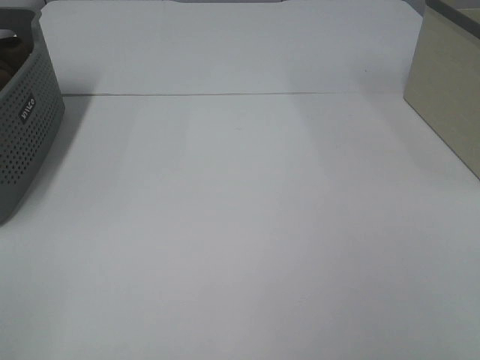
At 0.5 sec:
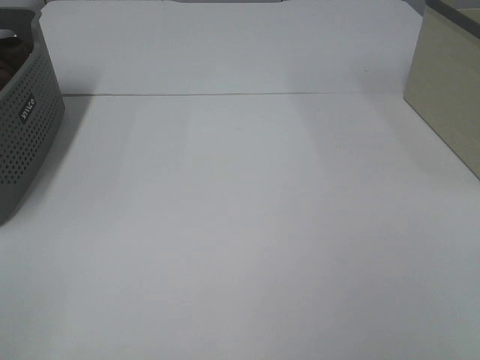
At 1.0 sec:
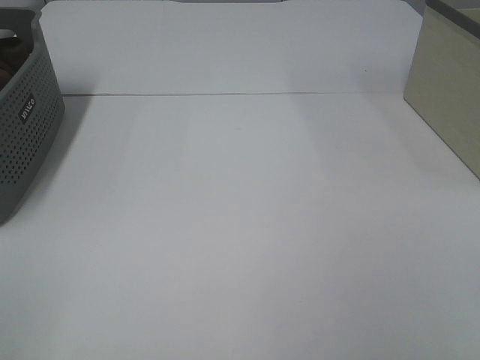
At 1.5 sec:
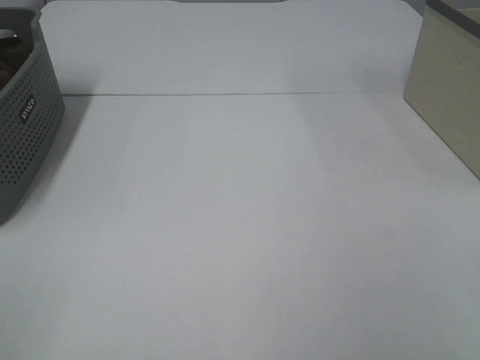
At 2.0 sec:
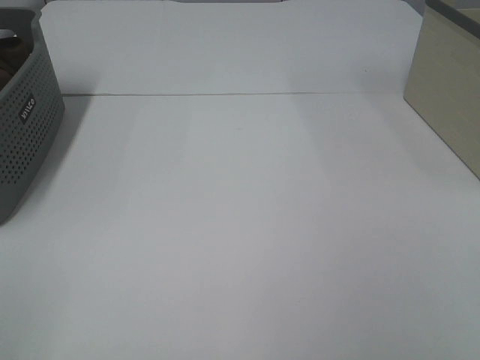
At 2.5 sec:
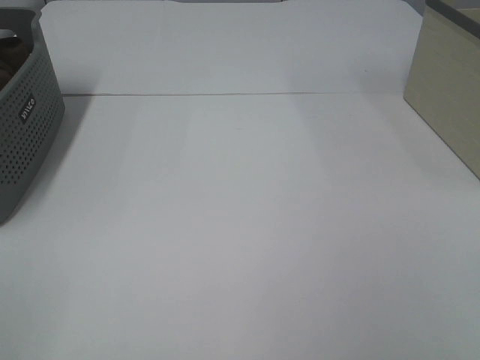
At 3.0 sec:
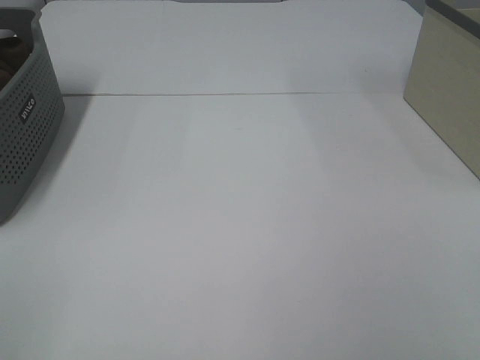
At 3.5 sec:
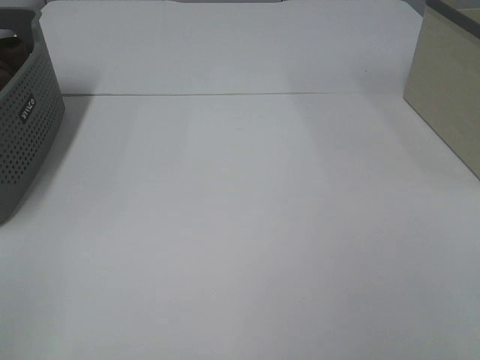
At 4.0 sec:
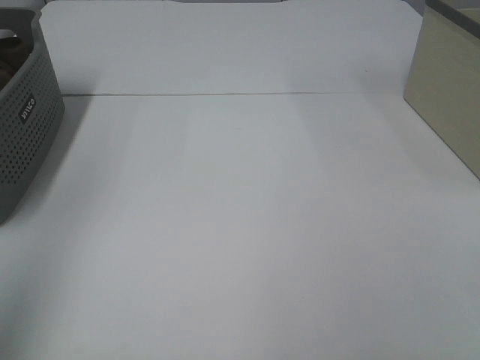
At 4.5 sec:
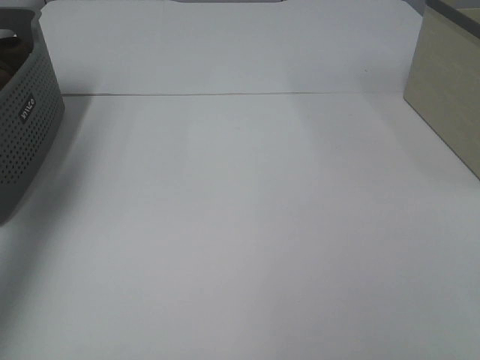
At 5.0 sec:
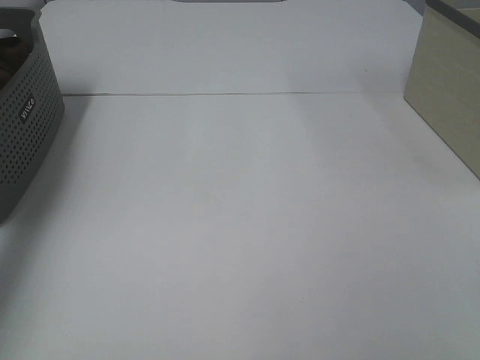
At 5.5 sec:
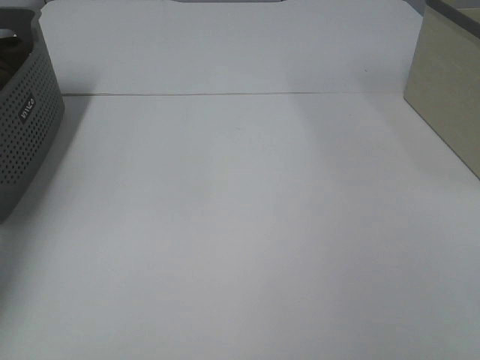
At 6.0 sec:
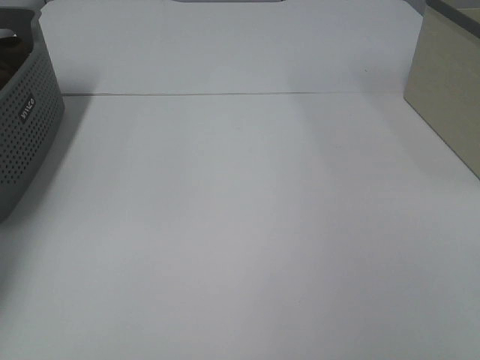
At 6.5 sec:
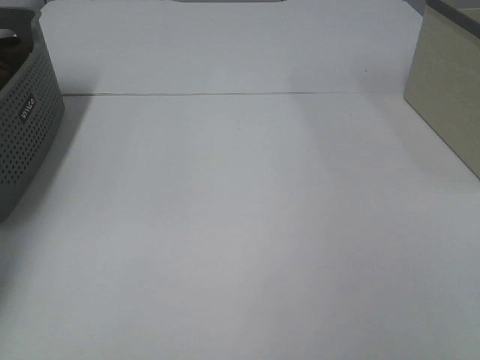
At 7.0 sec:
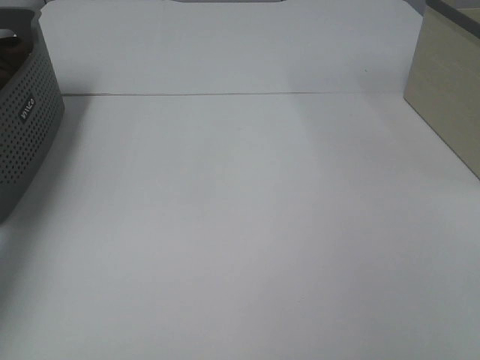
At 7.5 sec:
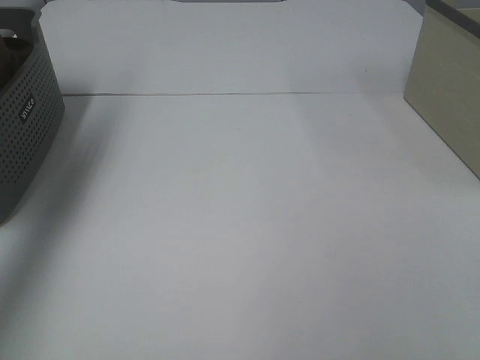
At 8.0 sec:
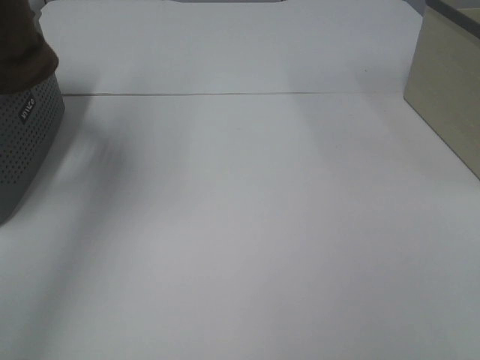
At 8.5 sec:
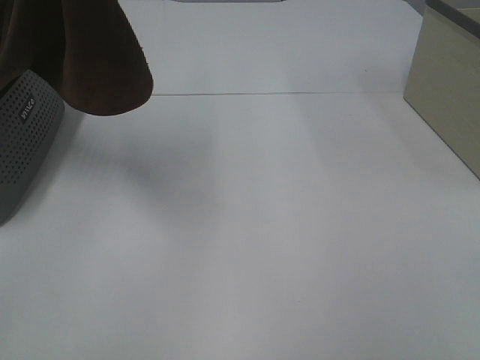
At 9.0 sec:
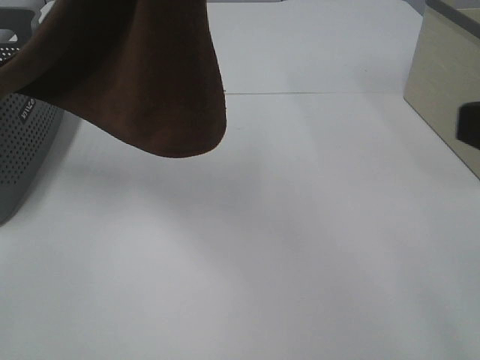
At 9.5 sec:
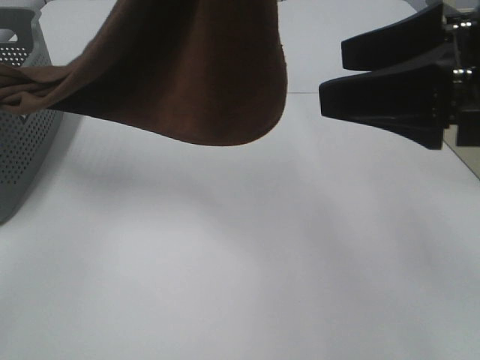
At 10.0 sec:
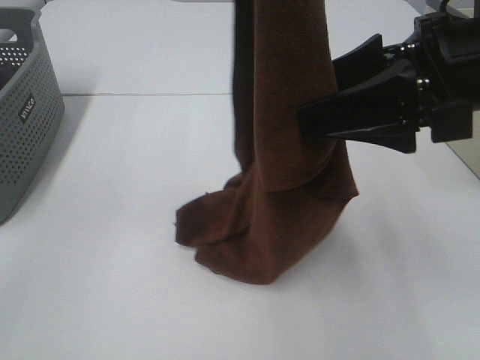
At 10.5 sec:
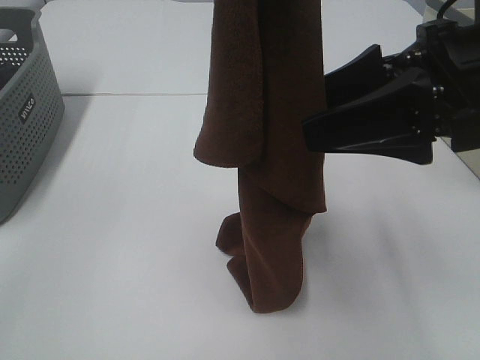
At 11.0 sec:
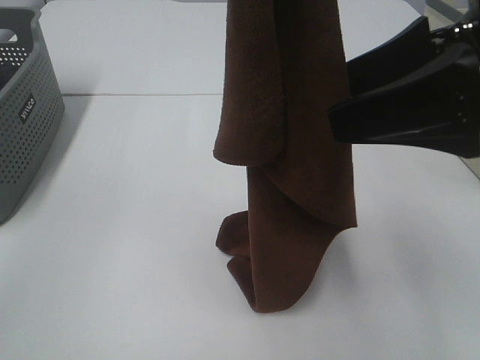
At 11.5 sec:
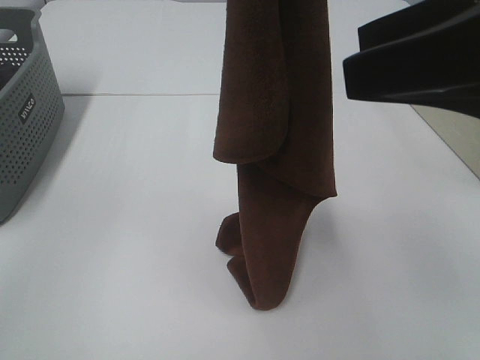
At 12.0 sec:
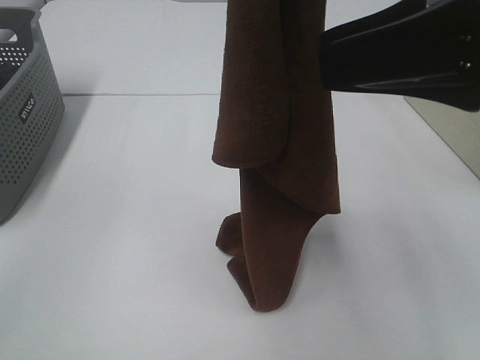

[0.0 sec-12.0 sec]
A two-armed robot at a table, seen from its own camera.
Task of the whole recording: Remove the towel and place it.
0.0 sec to 2.0 sec: Both grippers stay about where they are.
2.0 sec to 4.0 sec: The left gripper shifts roughly 20 cm upward and forward.
4.0 sec to 6.0 sec: The left gripper moves forward and downward, roughly 40 cm.
6.0 sec to 8.0 sec: The left gripper travels upward, to the right and backward by about 35 cm, and closes up.
8.0 sec to 10.0 sec: The right gripper heads forward and to the left, covering roughly 25 cm. The left gripper shifts approximately 20 cm to the right and backward.
10.0 sec to 12.0 sec: The right gripper moves some 5 cm.

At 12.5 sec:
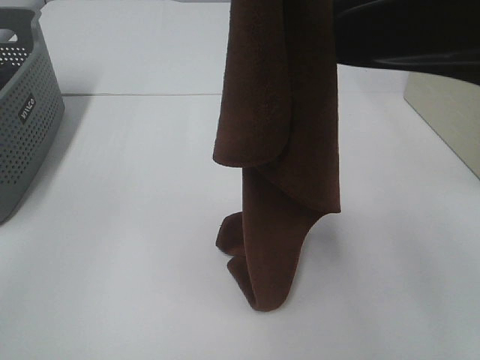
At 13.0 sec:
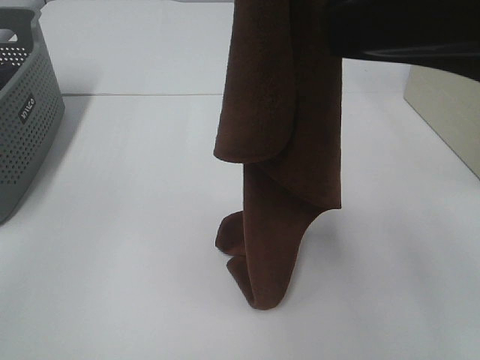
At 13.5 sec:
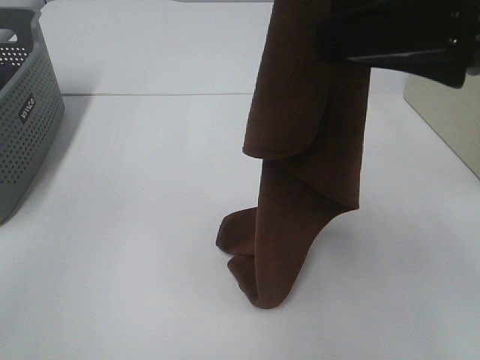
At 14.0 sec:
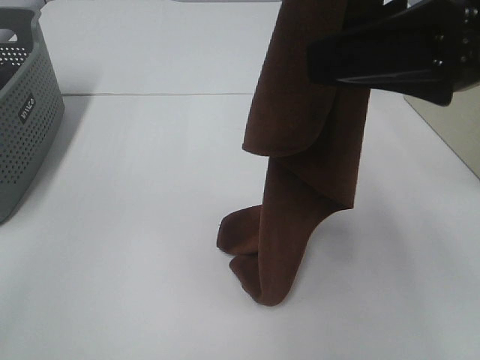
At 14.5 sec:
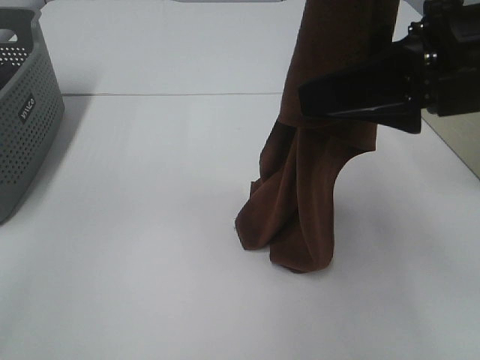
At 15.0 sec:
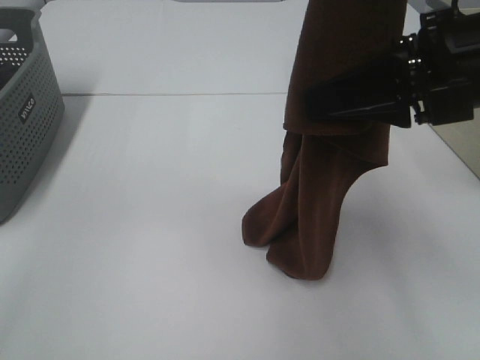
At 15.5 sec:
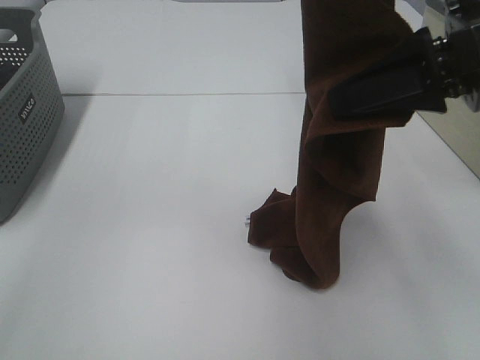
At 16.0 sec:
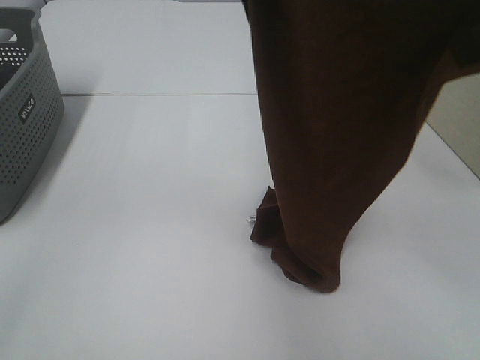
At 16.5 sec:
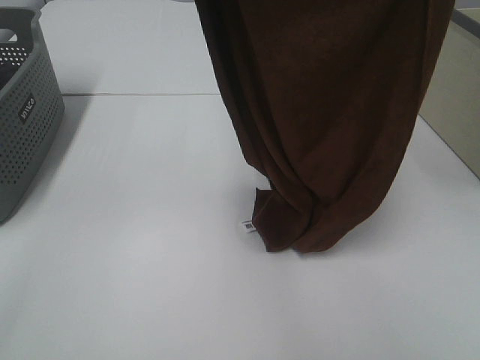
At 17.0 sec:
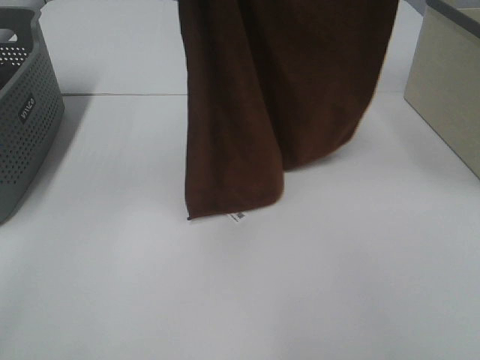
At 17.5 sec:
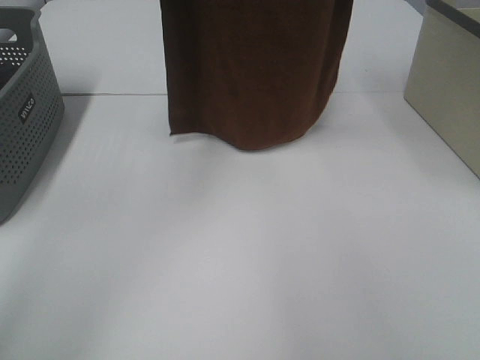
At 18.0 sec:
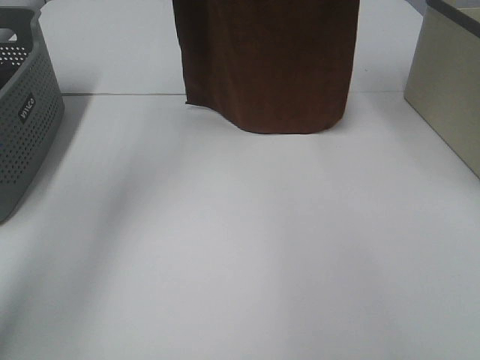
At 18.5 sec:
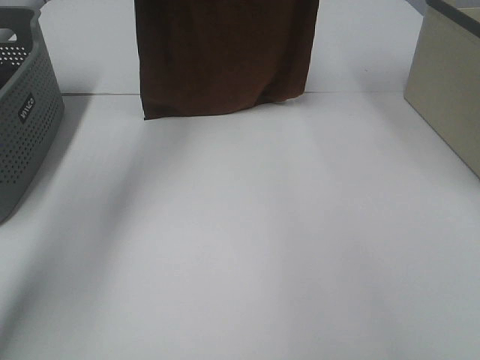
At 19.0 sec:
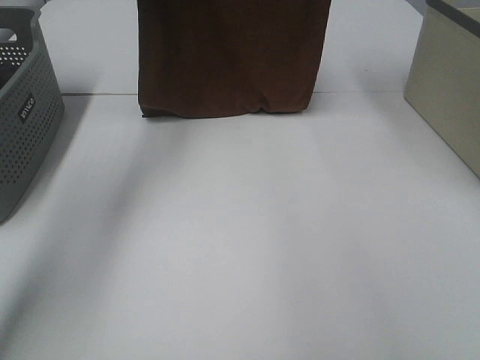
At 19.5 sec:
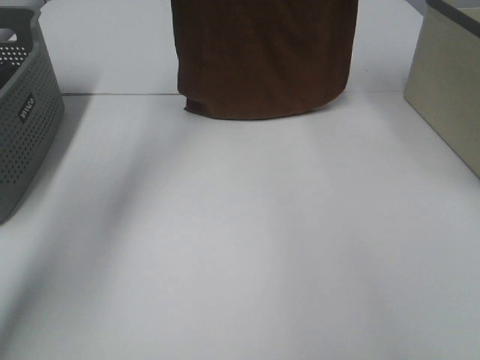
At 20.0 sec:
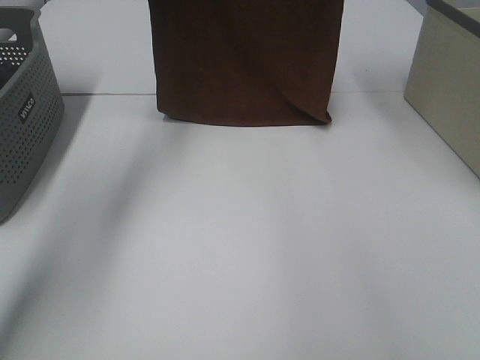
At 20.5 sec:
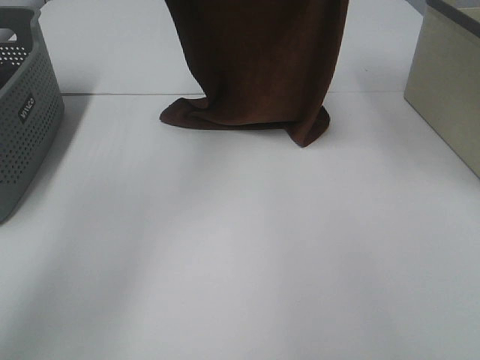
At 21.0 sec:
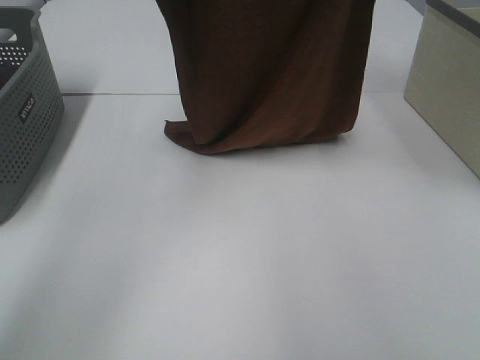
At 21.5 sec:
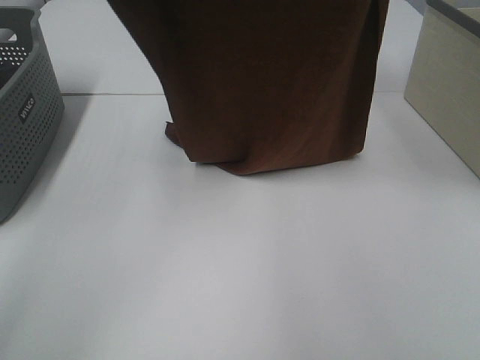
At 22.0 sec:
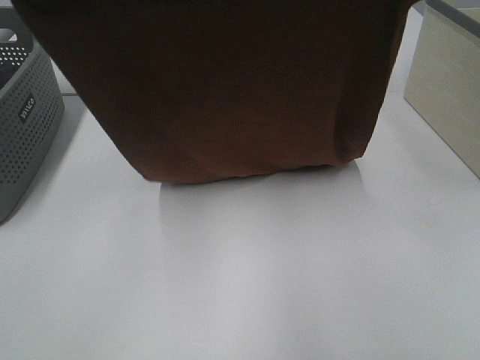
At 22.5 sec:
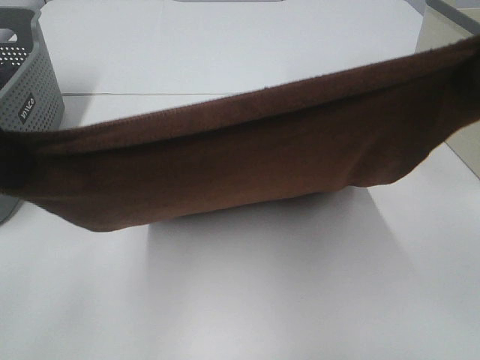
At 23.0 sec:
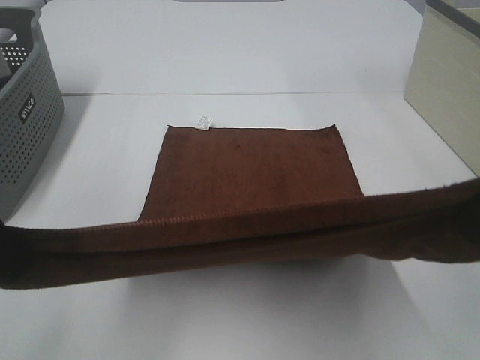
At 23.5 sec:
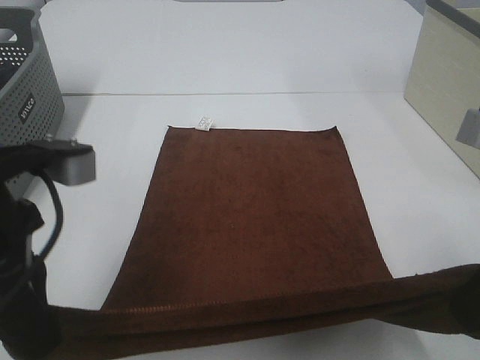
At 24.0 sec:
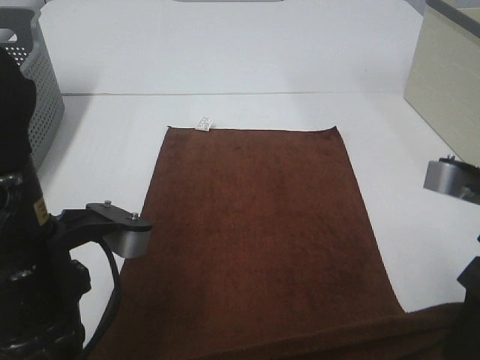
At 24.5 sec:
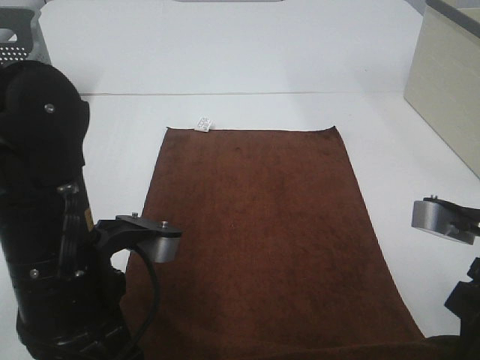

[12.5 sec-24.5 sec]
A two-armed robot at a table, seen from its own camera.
Task of the whole recording: Remove the towel and place it.
Step, 14.0 sec to 21.0 sec: Left hand: spread the brown towel flat on the table.
Step, 14.0 sec to 21.0 sec: Right hand: spread the brown towel flat on the table.
12.5 sec to 14.5 sec: The left gripper shifts by roughly 5 cm. The right gripper shifts roughly 10 cm downward and forward.
14.5 sec to 16.5 sec: The right gripper moves upward, some 20 cm, and closes its fingers. Meanwhile the left gripper goes about 5 cm to the left.
16.5 sec to 18.5 sec: The left gripper heads forward and to the left, covering approximately 25 cm; the right gripper shifts approximately 20 cm forward.
18.5 sec to 20.5 sec: The right gripper changes place by roughly 5 cm. The left gripper heads backward, covering roughly 5 cm.
20.5 sec to 22.5 sec: Both grippers travel together backward, about 25 cm.
22.5 sec to 24.5 sec: The left gripper goes about 20 cm downward and to the right; the right gripper is displaced downward by roughly 20 cm.

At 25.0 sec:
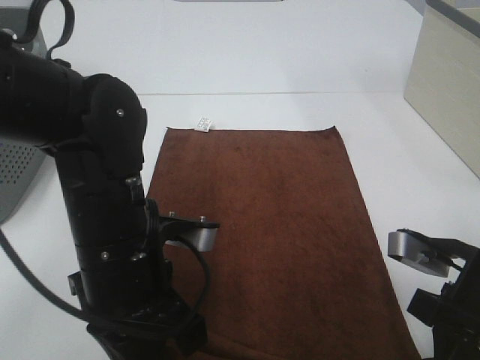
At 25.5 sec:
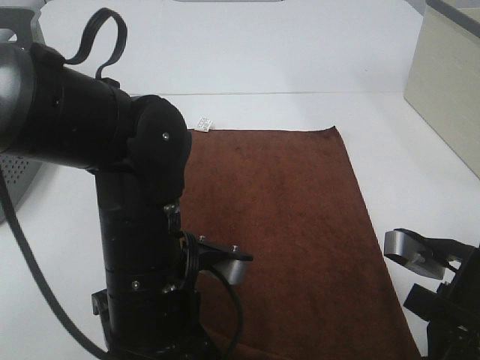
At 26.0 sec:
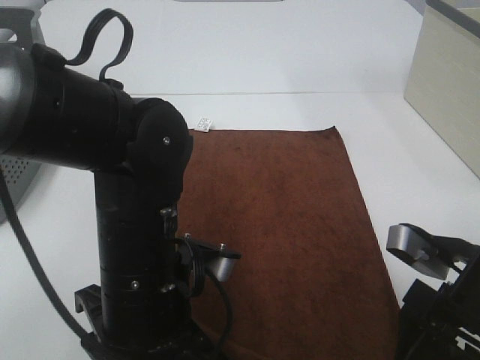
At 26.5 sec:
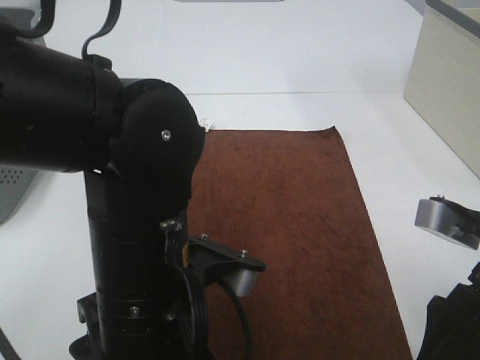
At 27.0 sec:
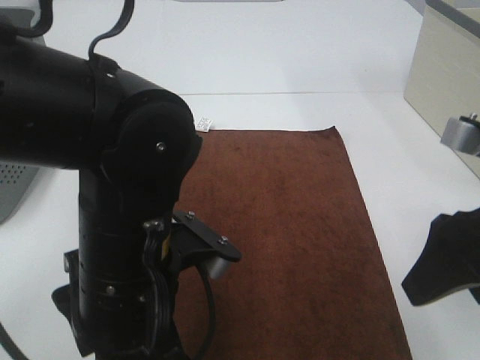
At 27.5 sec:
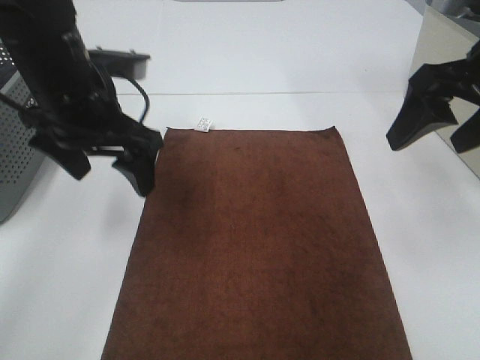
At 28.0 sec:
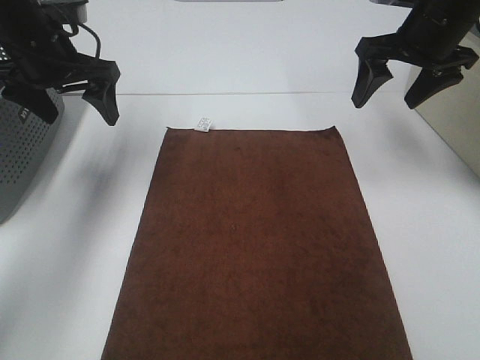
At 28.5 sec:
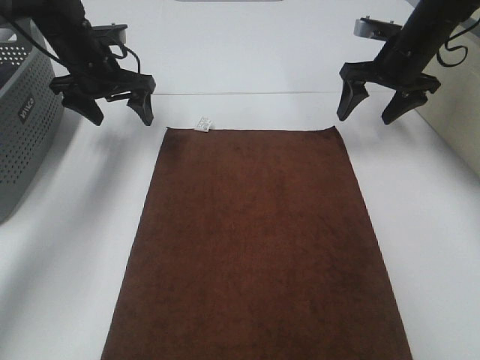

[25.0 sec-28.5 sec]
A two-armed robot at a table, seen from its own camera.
Task of the whole recording: Remove the towel and place it.
25.0 sec to 27.0 sec: The right gripper shifts roughly 10 cm upward, and opens its fingers. Meanwhile the left gripper opens.
27.0 sec to 28.5 sec: The right gripper shifts some 30 cm forward. The left gripper is displaced forward and to the left by some 35 cm.
